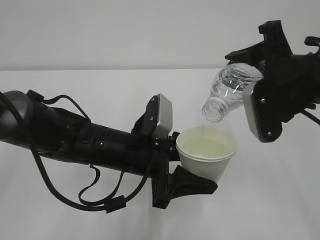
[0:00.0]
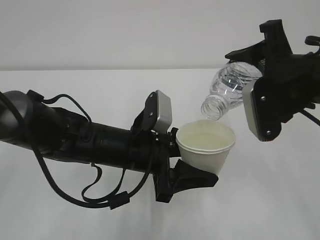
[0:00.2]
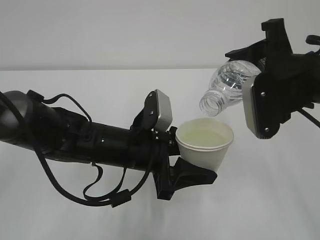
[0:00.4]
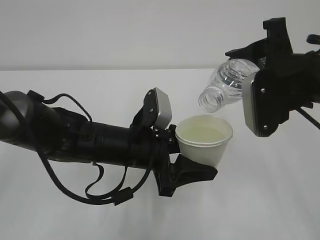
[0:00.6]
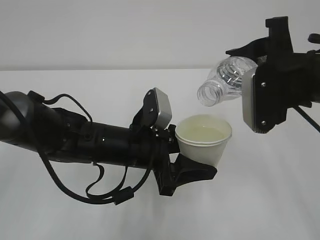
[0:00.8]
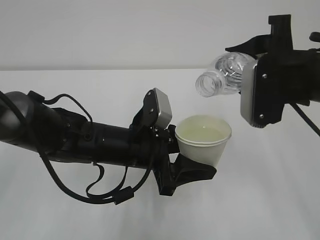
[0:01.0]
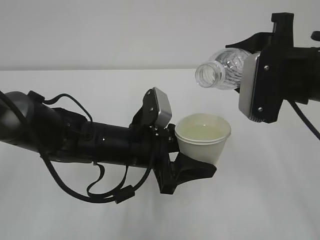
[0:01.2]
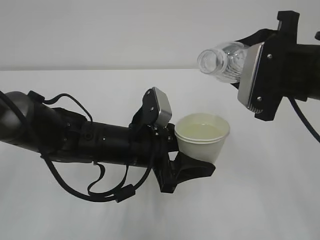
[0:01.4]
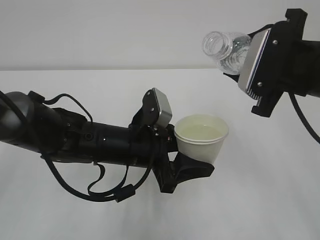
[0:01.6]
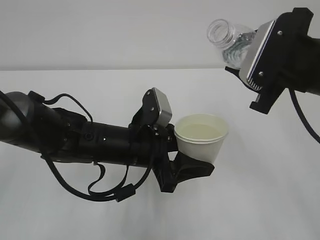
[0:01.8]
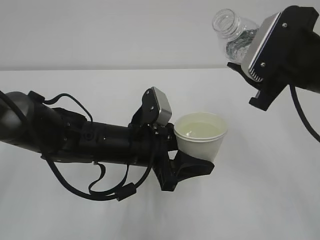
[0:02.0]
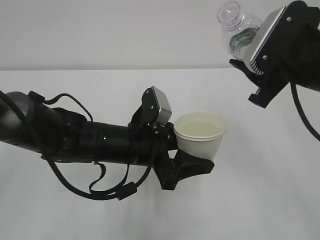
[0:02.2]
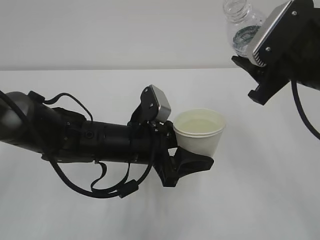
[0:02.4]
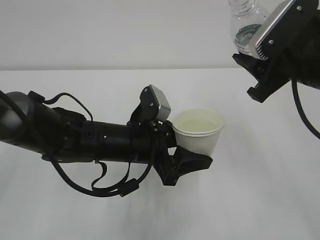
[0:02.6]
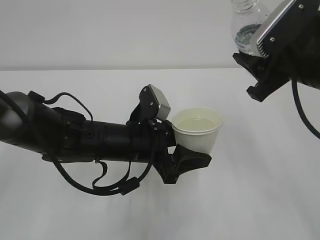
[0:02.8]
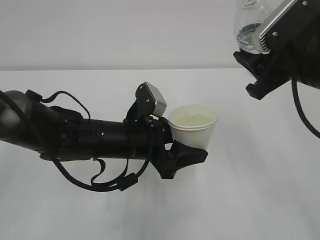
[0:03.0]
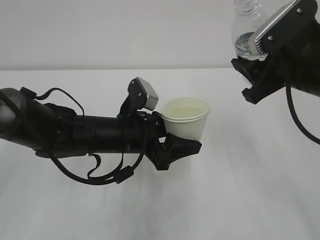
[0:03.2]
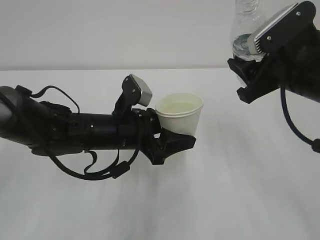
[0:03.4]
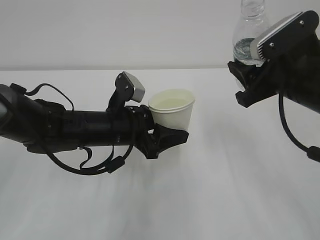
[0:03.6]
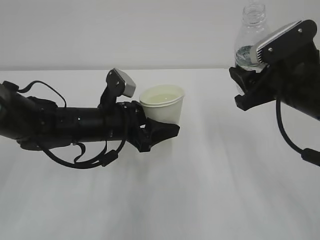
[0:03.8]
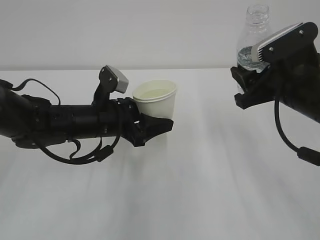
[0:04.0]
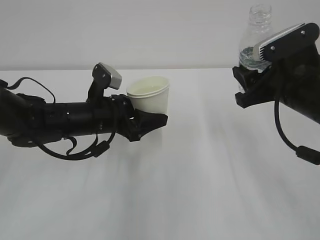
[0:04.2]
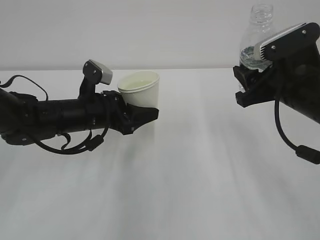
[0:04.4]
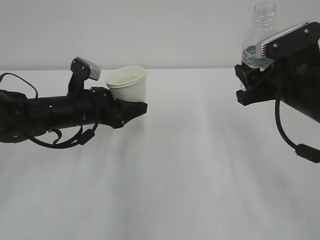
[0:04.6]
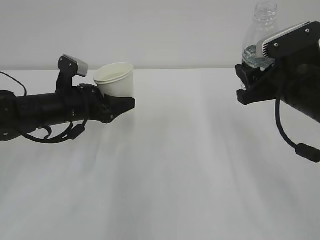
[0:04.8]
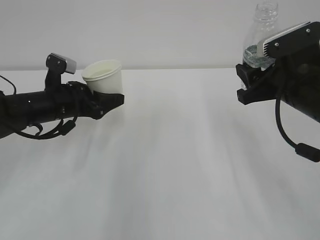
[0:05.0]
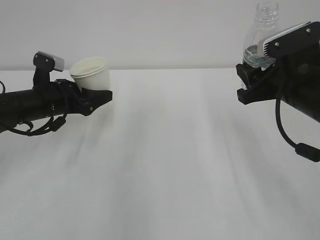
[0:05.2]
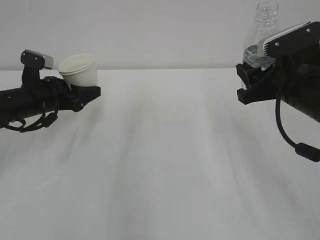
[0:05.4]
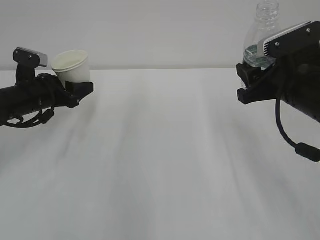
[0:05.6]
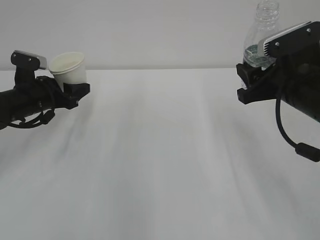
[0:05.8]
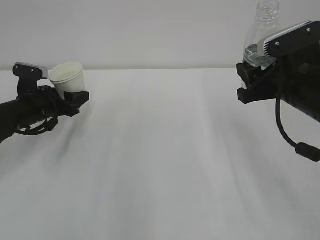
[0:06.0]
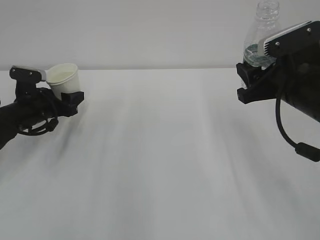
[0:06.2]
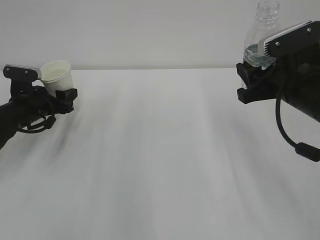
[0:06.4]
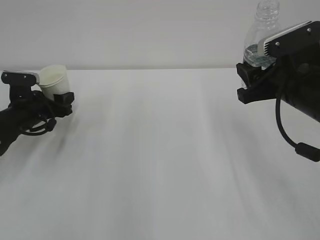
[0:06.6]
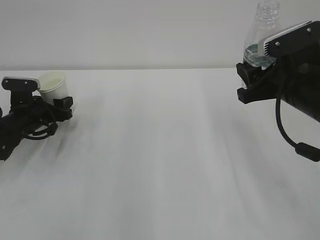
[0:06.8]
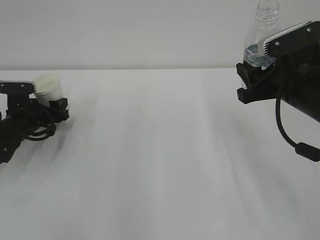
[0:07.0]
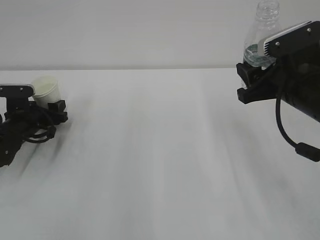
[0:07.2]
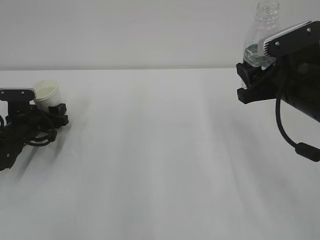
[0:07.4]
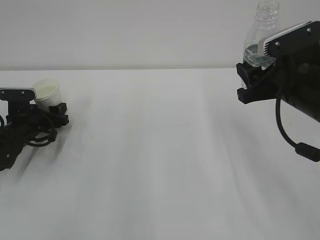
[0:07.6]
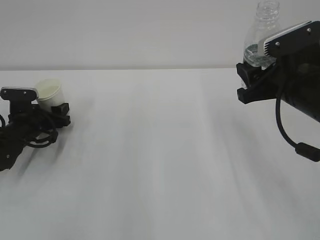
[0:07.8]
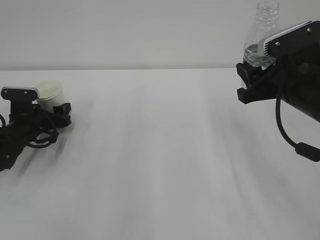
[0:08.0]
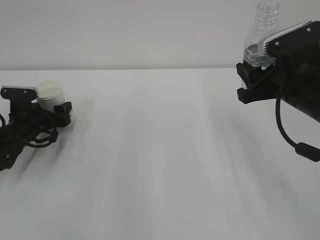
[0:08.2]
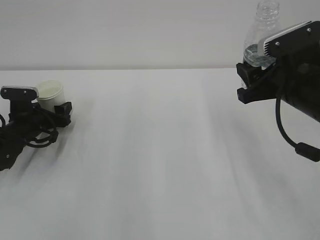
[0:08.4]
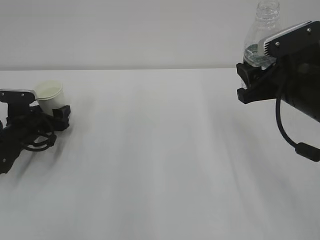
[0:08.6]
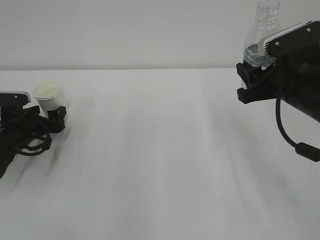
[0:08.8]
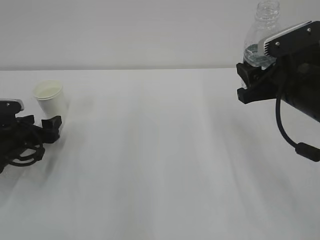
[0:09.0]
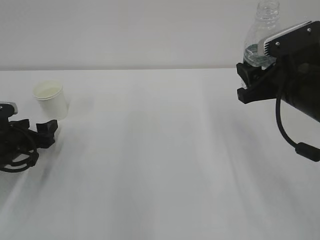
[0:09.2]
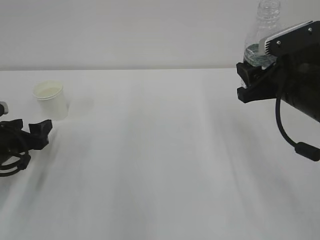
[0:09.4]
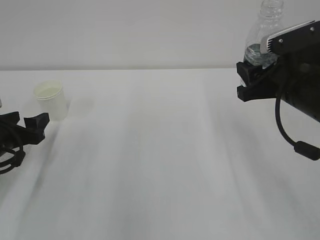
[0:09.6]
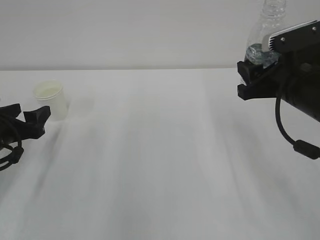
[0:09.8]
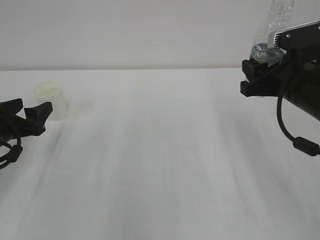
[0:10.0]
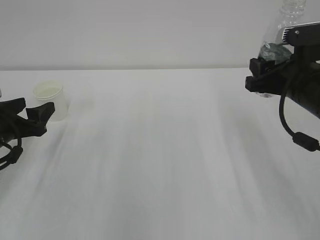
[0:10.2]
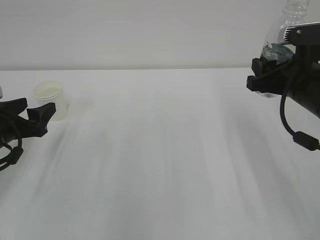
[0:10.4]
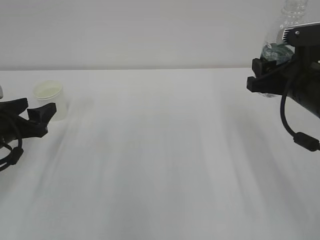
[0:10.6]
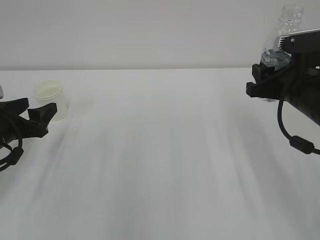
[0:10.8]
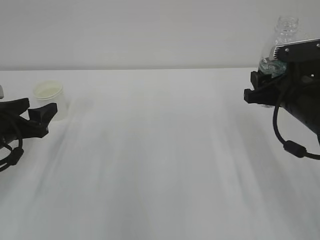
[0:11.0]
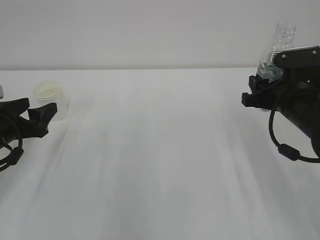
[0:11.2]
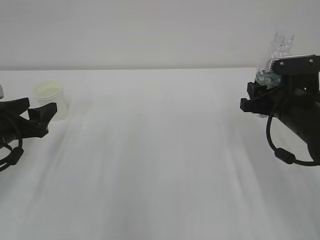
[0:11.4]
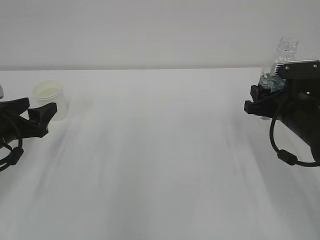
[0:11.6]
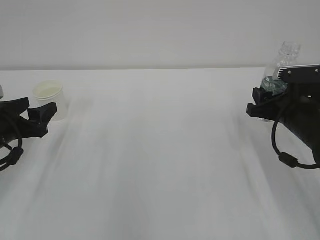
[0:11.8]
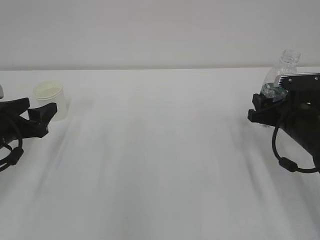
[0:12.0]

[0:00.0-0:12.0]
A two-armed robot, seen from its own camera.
0:03.0 to 0:04.4: The left gripper heads to the left and forward, covering roughly 10 cm, while the right gripper travels downward by approximately 5 cm.
0:04.4 to 0:06.0: The left gripper heads to the left and forward, covering some 15 cm.
0:06.0 to 0:07.6: The left gripper moves downward, some 5 cm.
0:07.6 to 0:09.0: The left gripper travels backward by approximately 5 cm, and opens up.
0:09.0 to 0:10.4: The left gripper heads upward, covering some 5 cm.
0:10.4 to 0:12.0: The right gripper moves downward, roughly 10 cm.

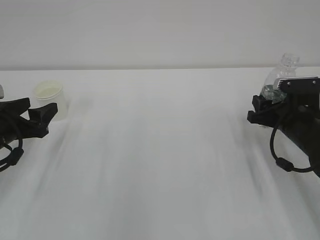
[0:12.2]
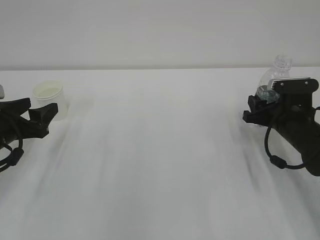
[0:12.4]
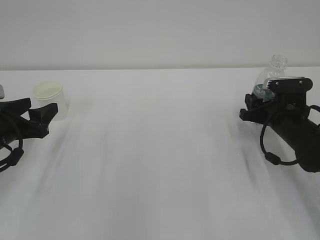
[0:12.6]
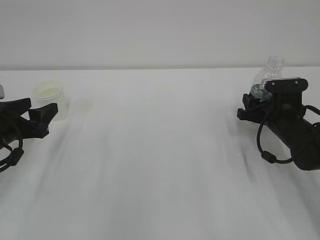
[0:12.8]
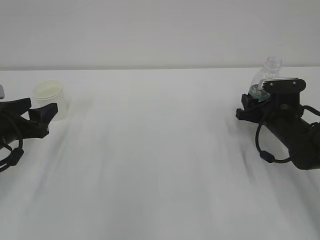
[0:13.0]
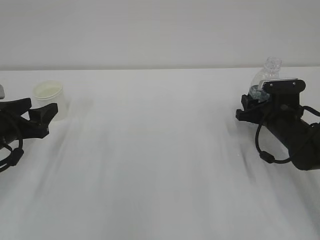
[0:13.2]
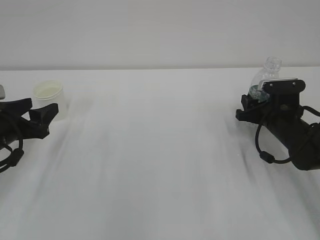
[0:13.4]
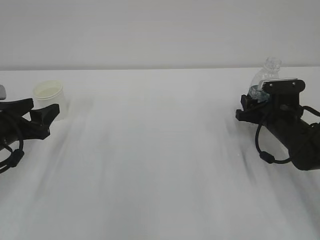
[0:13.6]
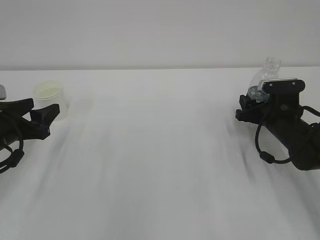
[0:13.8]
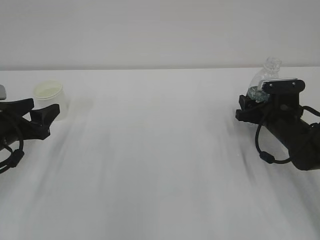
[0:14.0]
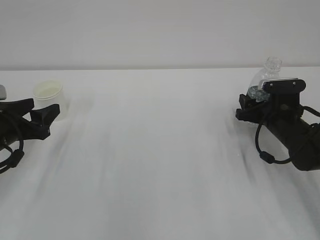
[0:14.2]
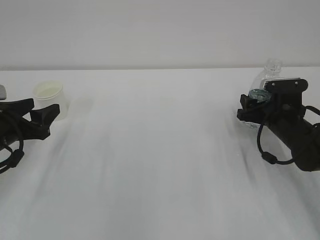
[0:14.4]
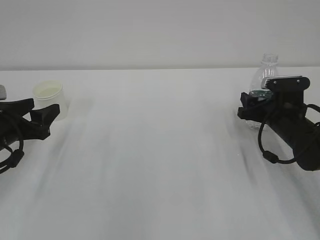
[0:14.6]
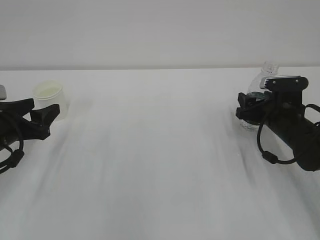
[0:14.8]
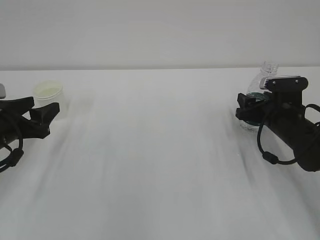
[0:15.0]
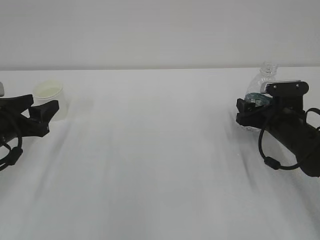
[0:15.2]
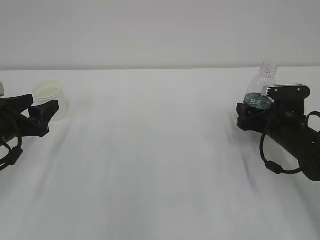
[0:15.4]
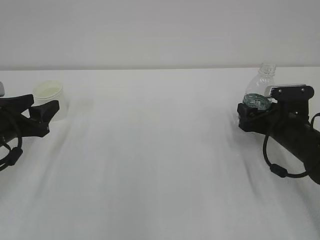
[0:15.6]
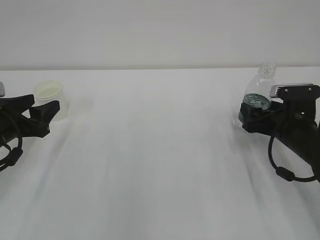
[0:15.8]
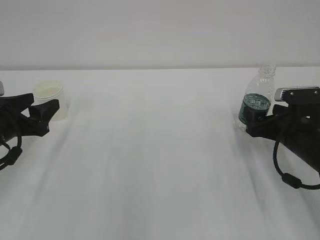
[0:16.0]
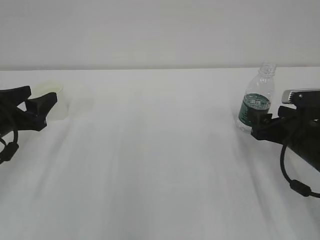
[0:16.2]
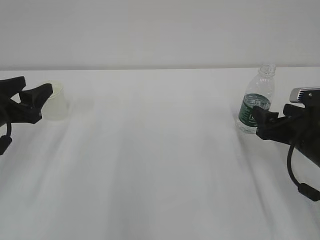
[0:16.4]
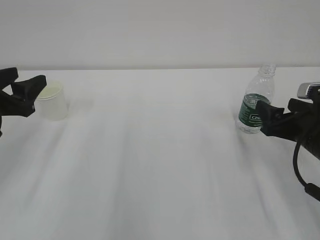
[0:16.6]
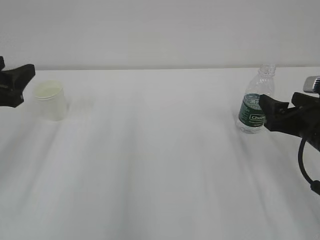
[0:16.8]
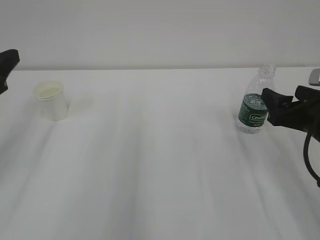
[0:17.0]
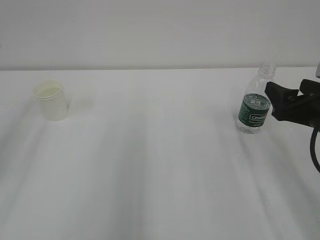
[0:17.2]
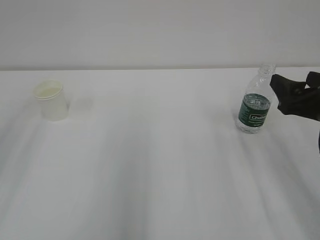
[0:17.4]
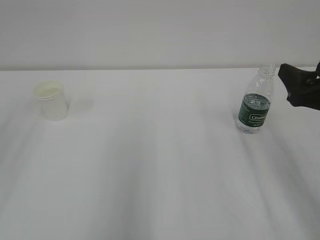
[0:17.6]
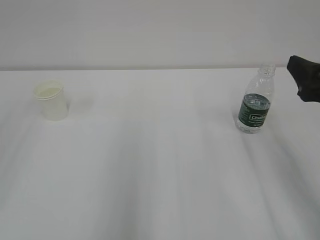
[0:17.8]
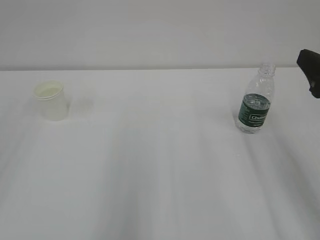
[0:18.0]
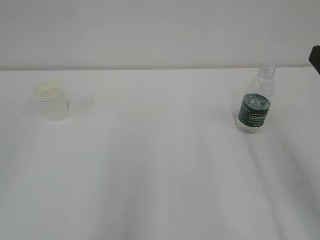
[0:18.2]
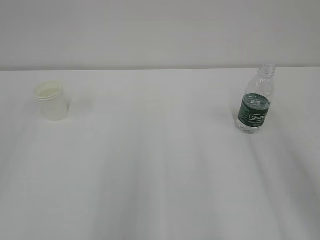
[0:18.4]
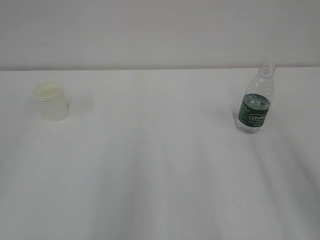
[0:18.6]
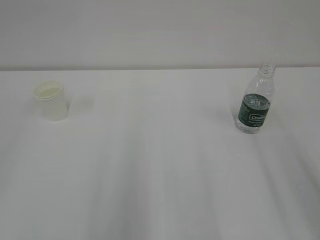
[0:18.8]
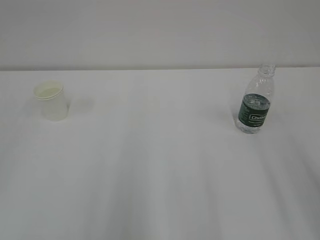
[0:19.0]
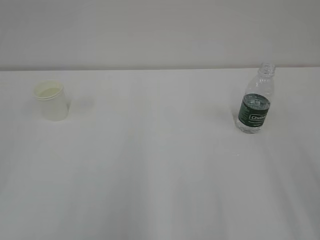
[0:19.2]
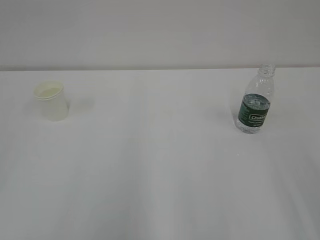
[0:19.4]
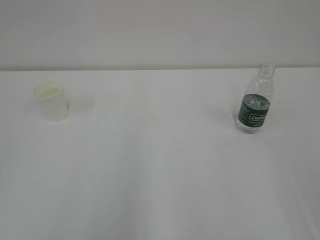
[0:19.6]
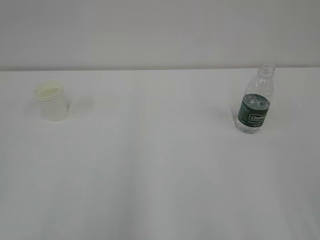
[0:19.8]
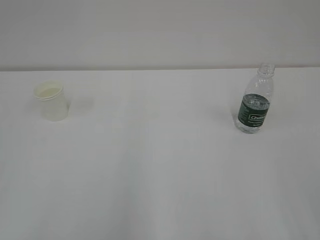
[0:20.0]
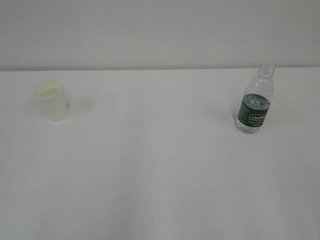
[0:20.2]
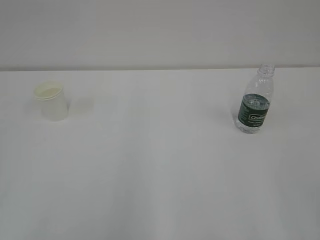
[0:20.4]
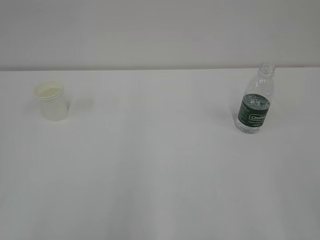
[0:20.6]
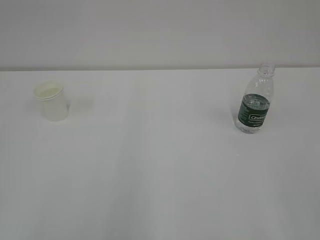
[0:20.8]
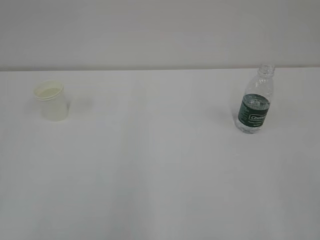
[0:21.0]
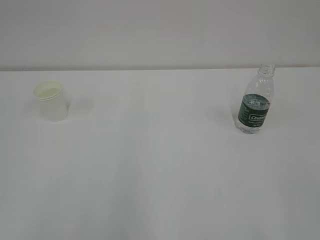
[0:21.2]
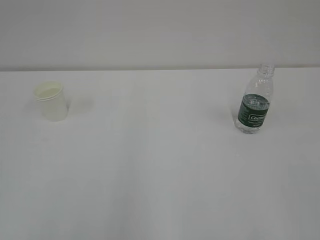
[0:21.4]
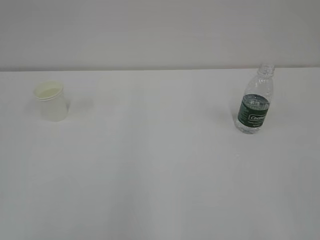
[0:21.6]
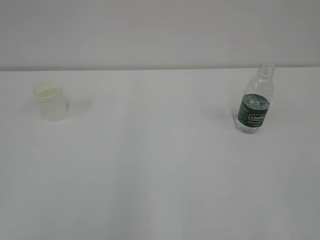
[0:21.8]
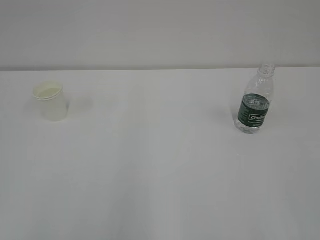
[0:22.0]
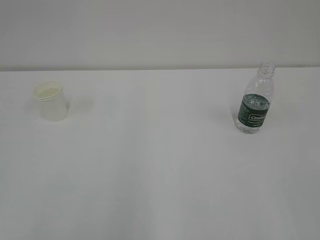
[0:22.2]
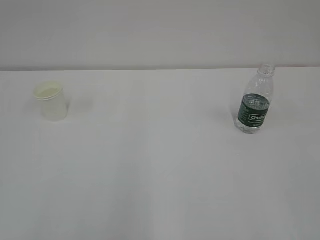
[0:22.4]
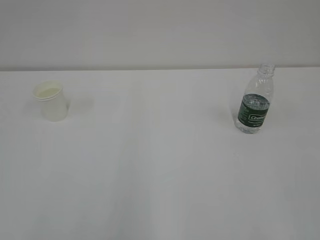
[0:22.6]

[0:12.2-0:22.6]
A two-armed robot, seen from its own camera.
0:12.2 to 0:13.6: The grippers stay close to where they were, moving slightly.
0:13.6 to 0:15.2: The right gripper opens its fingers.
0:15.2 to 0:16.6: The left gripper goes about 5 cm upward. The right gripper shifts about 10 cm backward and upward.
0:16.6 to 0:18.2: The right gripper shifts roughly 15 cm upward and backward, while the left gripper is displaced backward and upward by some 20 cm.
